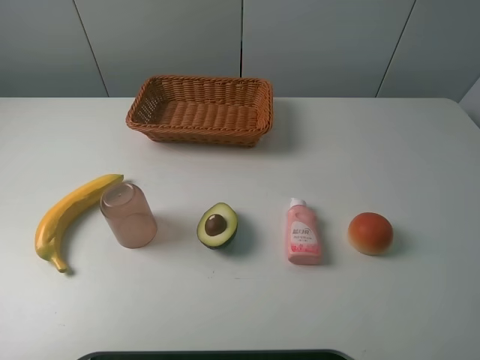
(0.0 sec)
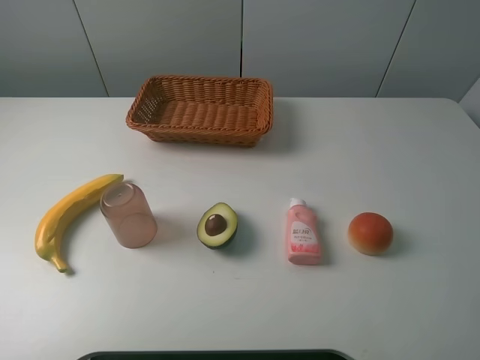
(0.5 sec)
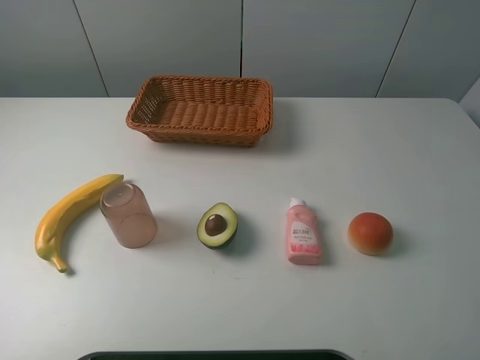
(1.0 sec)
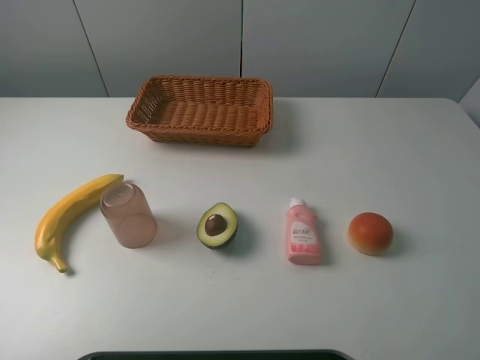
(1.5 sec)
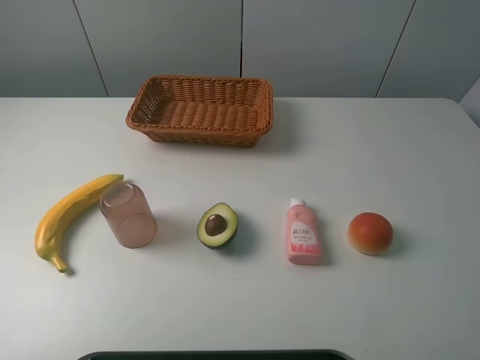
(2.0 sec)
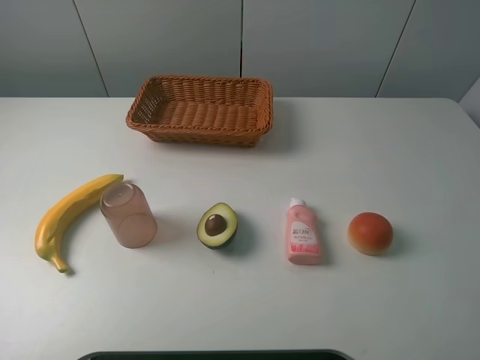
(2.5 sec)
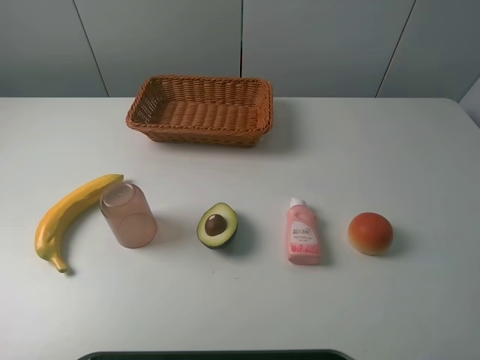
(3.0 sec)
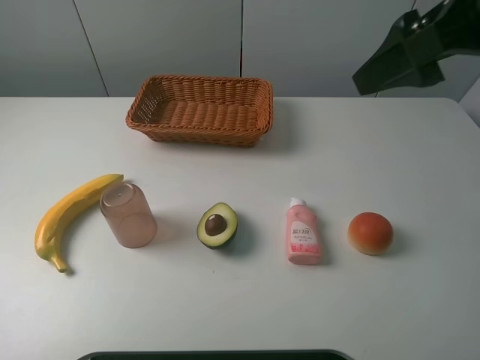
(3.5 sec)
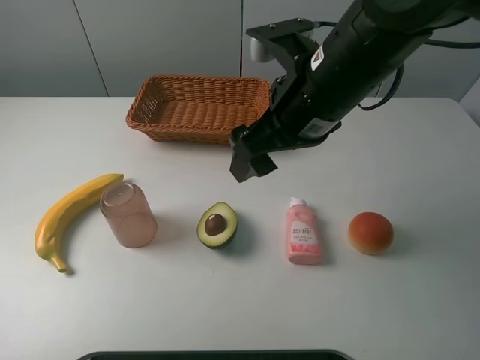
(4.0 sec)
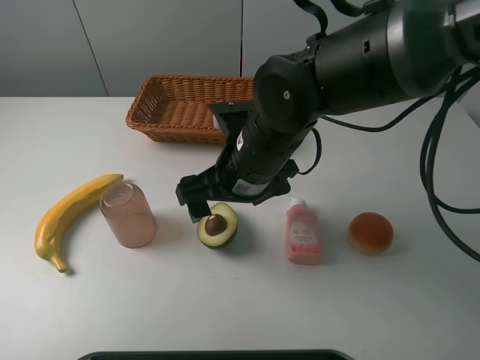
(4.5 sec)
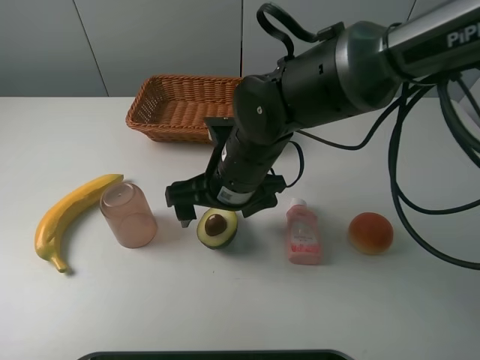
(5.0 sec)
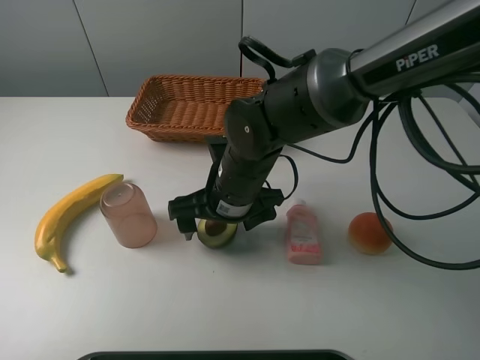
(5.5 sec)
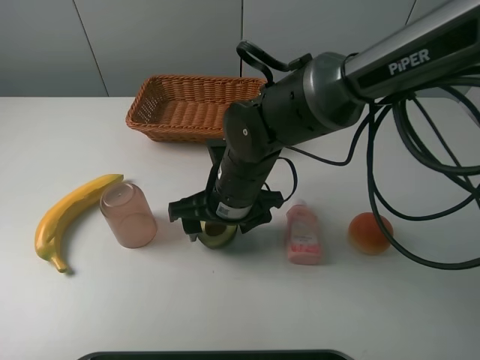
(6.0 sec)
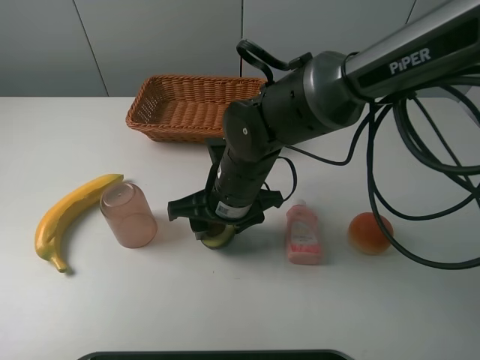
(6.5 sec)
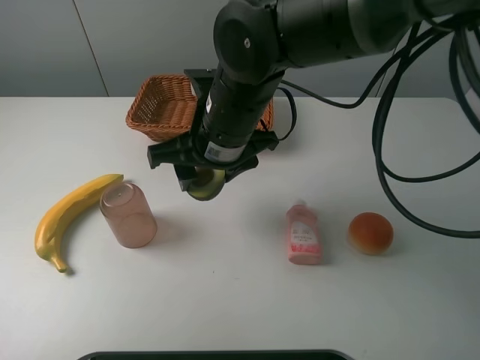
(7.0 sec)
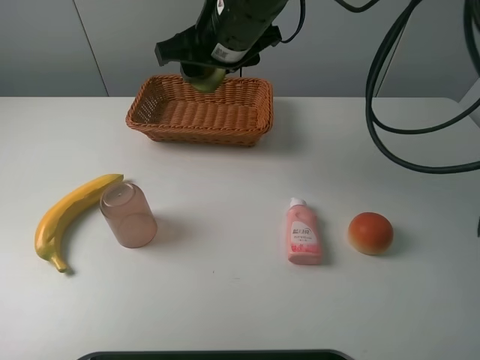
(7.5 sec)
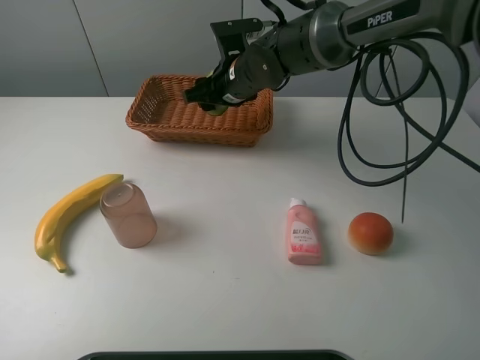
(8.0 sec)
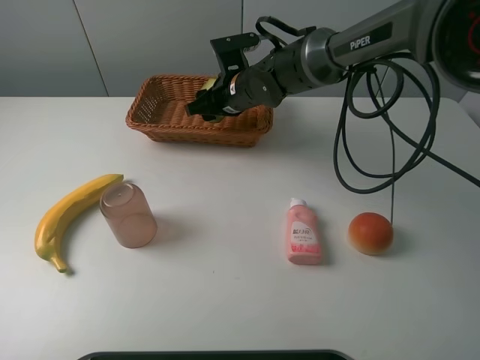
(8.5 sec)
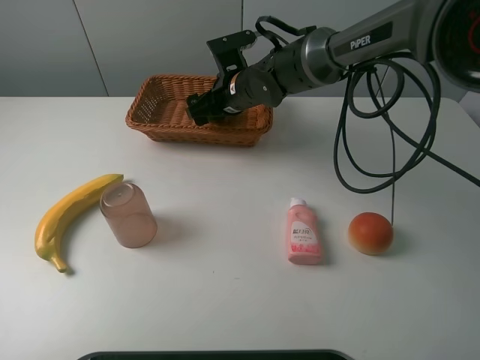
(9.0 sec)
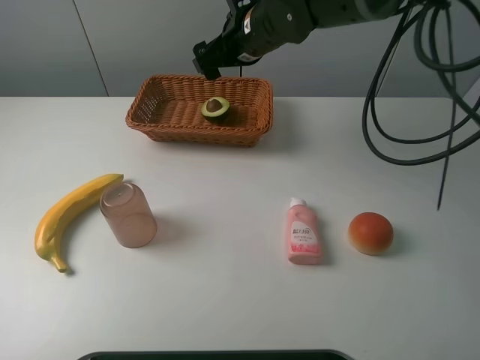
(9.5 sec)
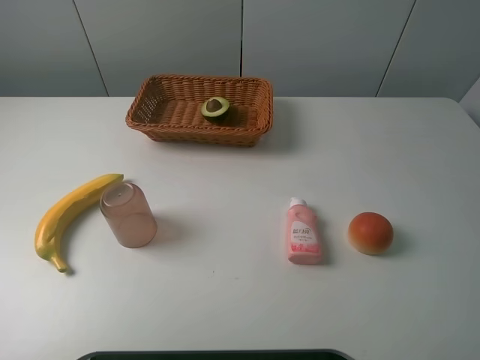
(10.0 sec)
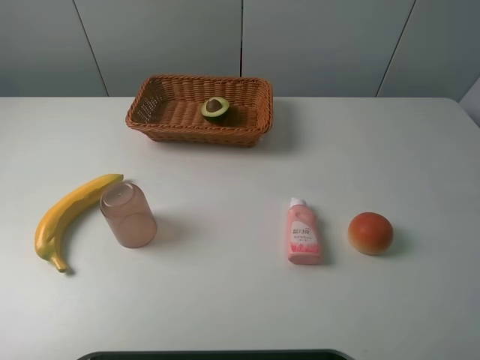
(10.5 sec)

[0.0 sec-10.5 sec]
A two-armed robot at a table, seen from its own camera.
Task of the whole recording: randomly pick up an item from the table and put it in the basket.
Step, 0.0 sec to 6.0 sec: Grasp the avocado with the right gripper.
Step, 6.5 sec to 9.5 sec: Place the avocado into the basket with the right gripper.
2.0 sec to 4.0 sec: The right gripper goes approximately 30 cm forward and to the left.
4.0 sec to 6.5 sec: The right gripper travels downward and to the left by roughly 15 cm, and closes up.
6.5 sec to 8.5 sec: The right gripper goes some 20 cm forward.
8.5 sec to 10.5 sec: The right gripper shifts approximately 40 cm upward, to the right and backward, and opens.
